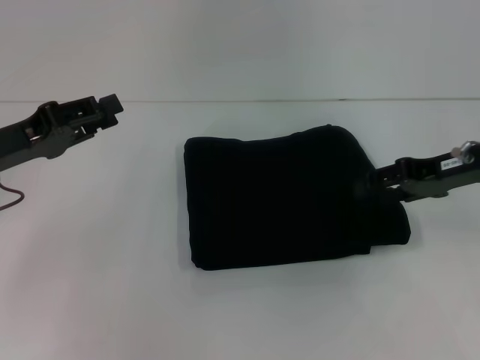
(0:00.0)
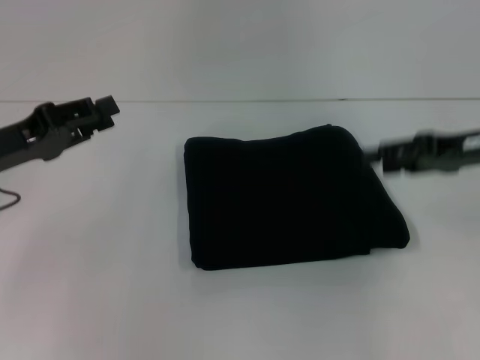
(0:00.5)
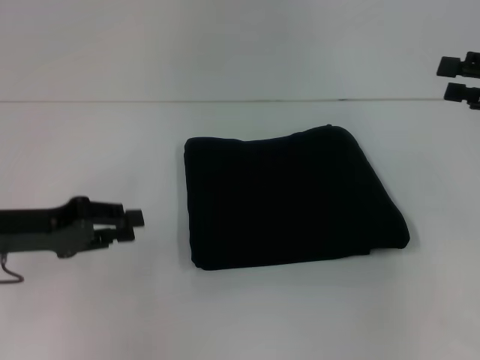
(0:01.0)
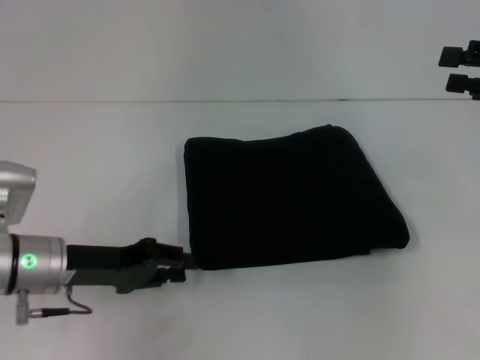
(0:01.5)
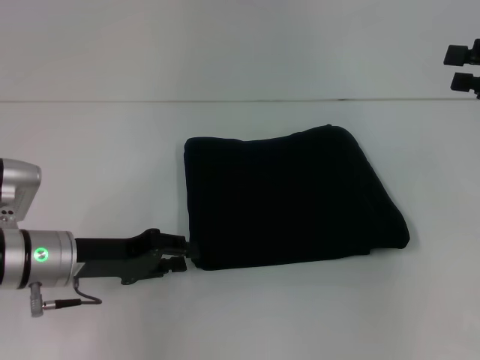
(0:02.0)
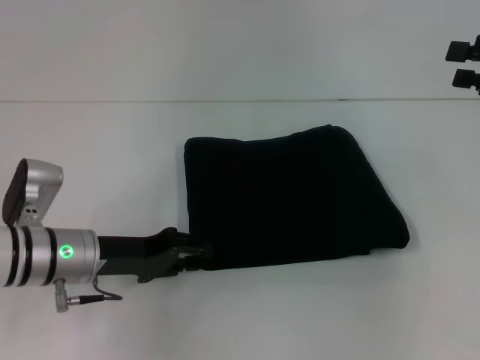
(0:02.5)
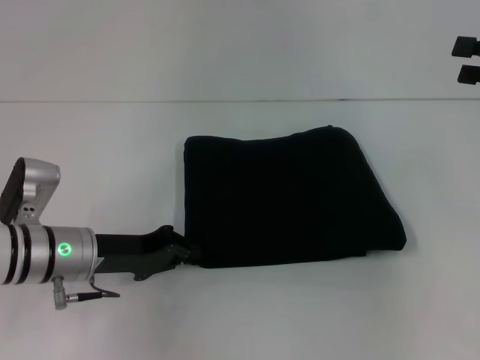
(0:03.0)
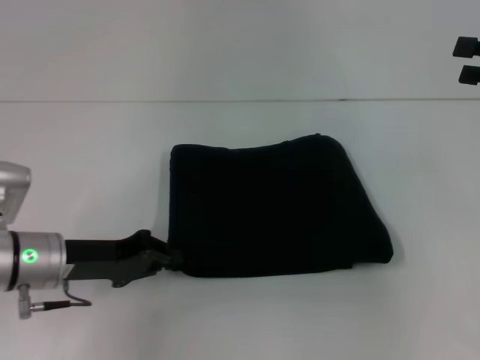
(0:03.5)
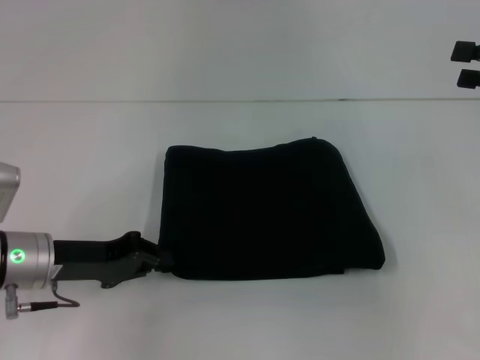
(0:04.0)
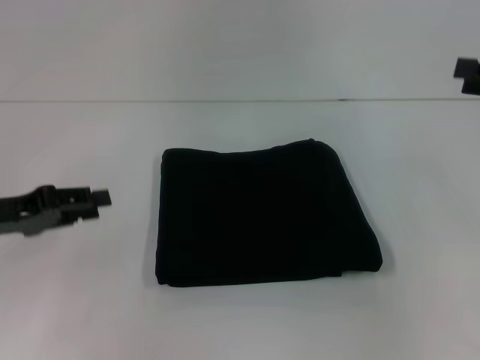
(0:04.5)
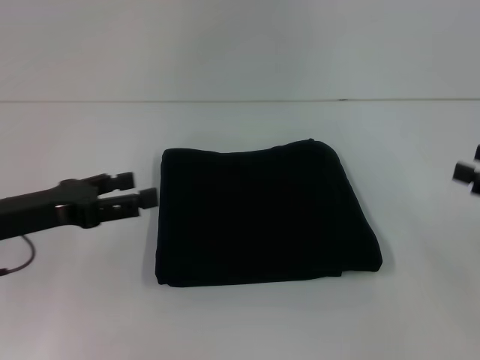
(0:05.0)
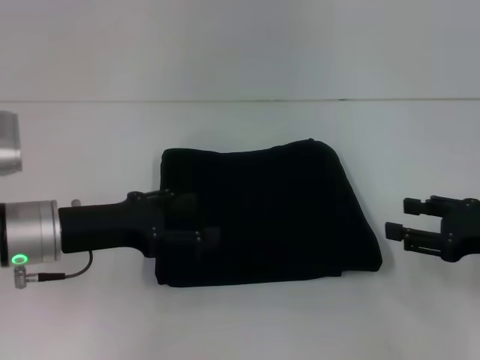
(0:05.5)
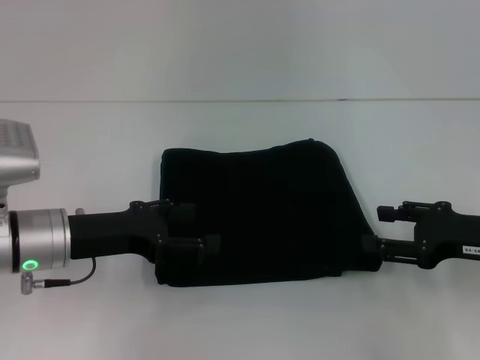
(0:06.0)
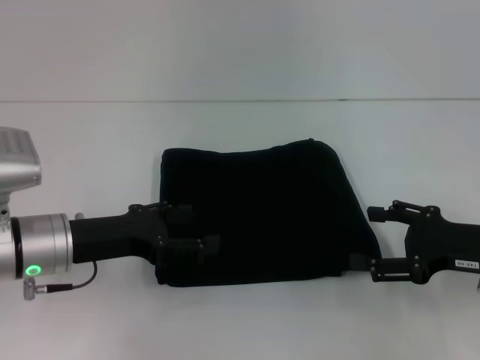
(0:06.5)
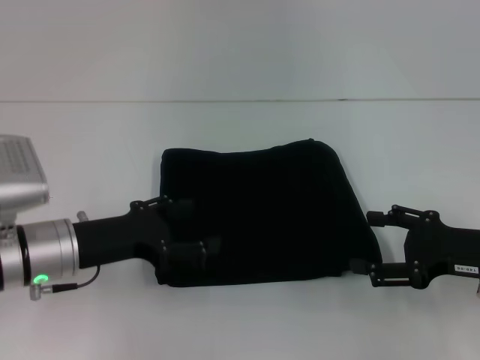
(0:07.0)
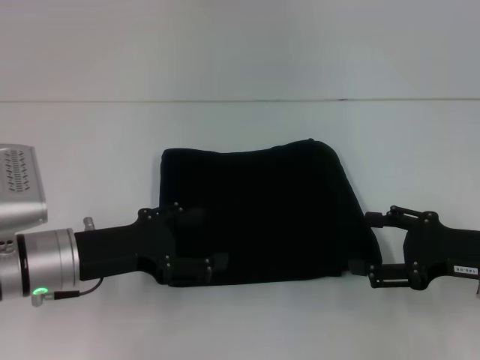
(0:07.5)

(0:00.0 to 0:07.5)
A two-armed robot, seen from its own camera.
0:00.0 - 0:02.0: The left gripper travels downward and to the right by roughly 10 cm, while the right gripper moves to the right and upward, approximately 10 cm.
0:02.0 - 0:04.0: The left gripper closes its fingers.
0:04.0 - 0:05.5: The right gripper is displaced downward and backward by some 15 cm. Meanwhile the left gripper reaches roughly 5 cm to the left, then returns, and opens up.
0:05.5 - 0:07.5: The grippers make only small movements.

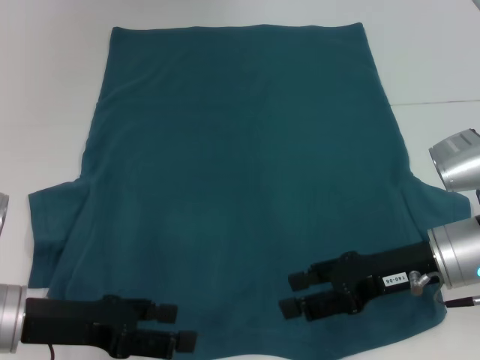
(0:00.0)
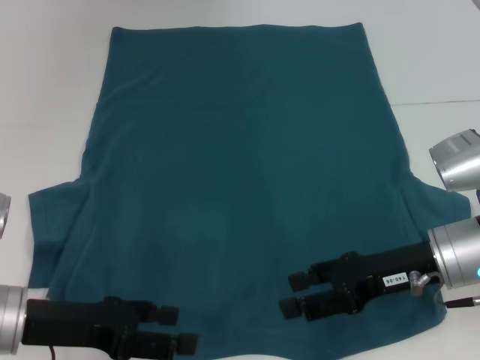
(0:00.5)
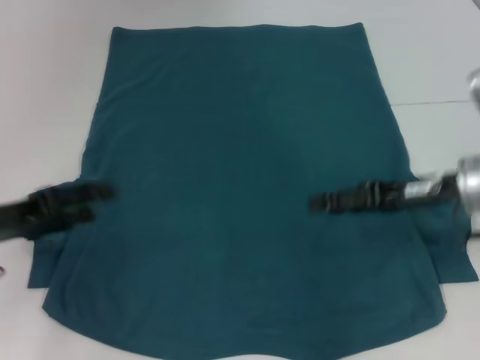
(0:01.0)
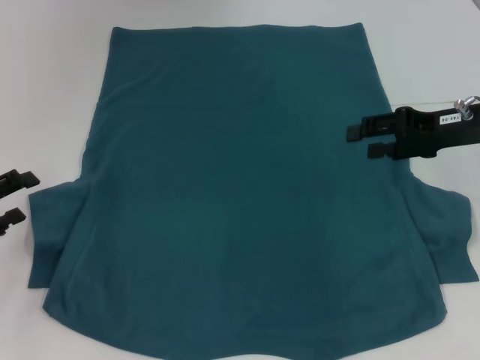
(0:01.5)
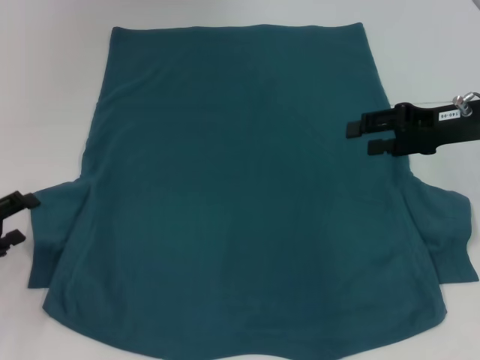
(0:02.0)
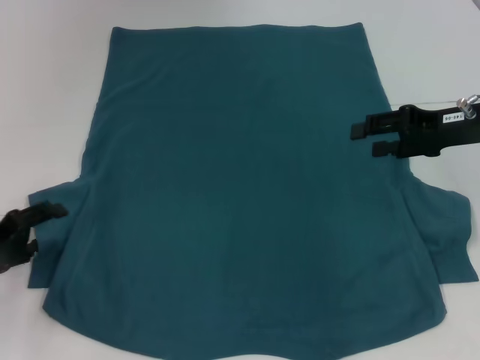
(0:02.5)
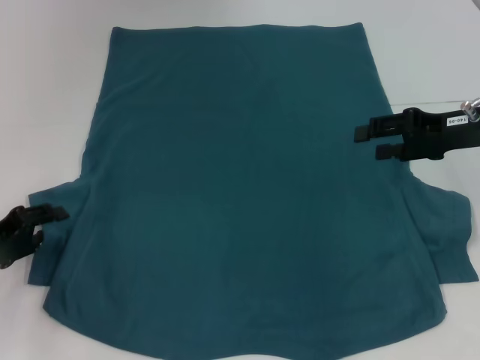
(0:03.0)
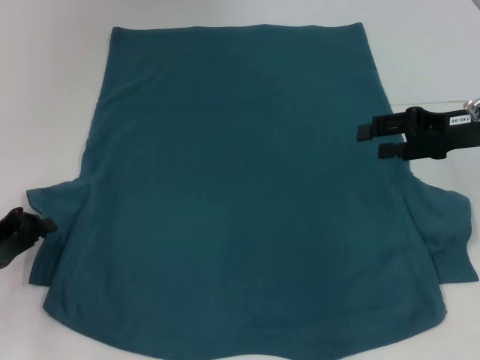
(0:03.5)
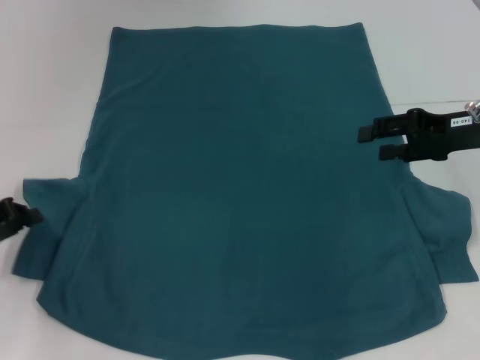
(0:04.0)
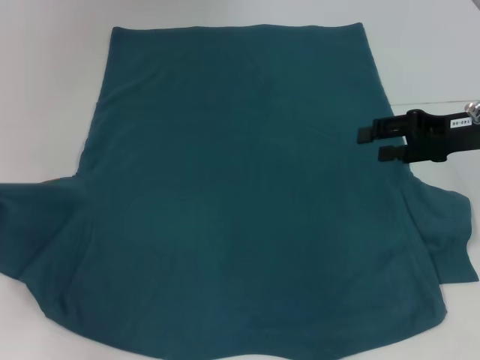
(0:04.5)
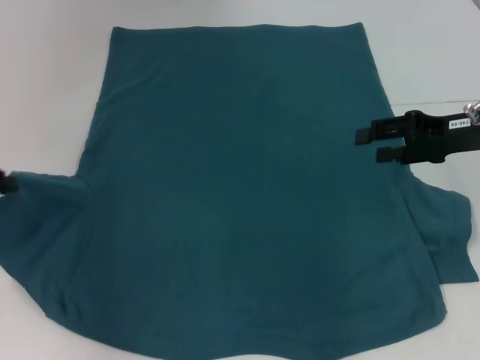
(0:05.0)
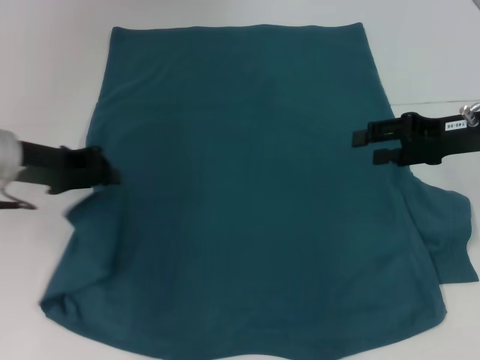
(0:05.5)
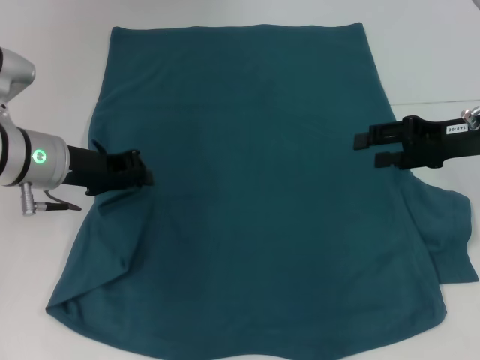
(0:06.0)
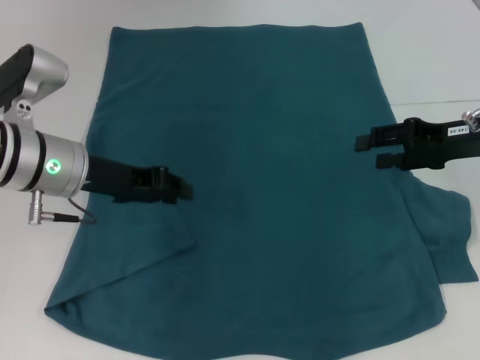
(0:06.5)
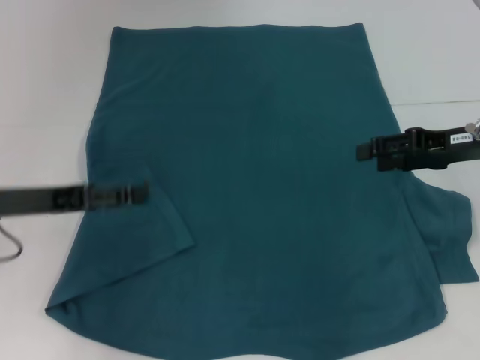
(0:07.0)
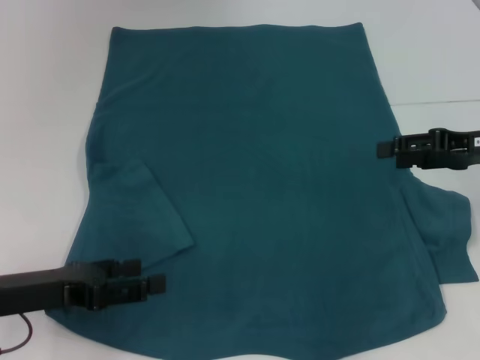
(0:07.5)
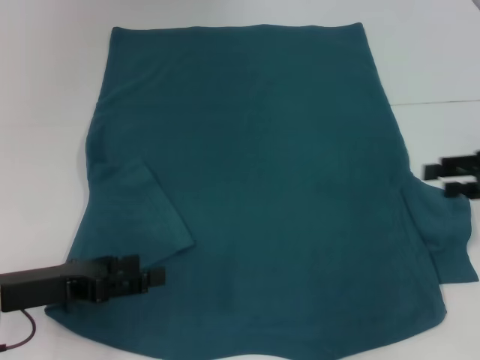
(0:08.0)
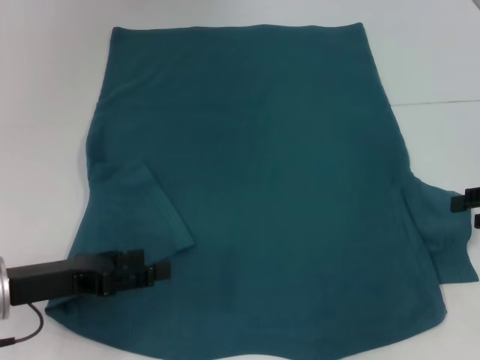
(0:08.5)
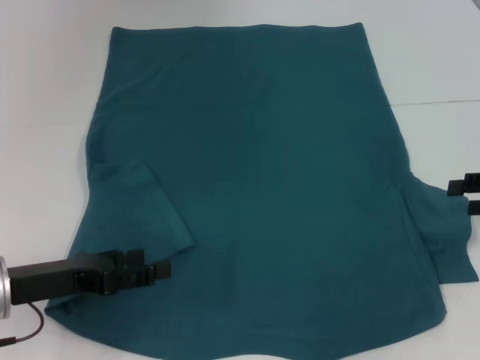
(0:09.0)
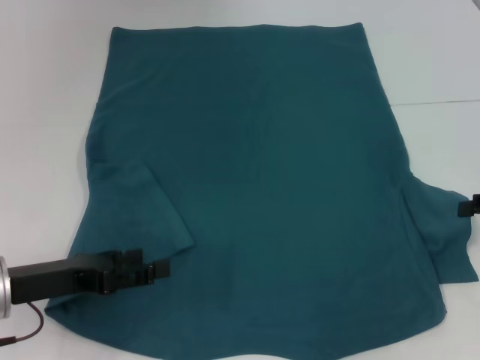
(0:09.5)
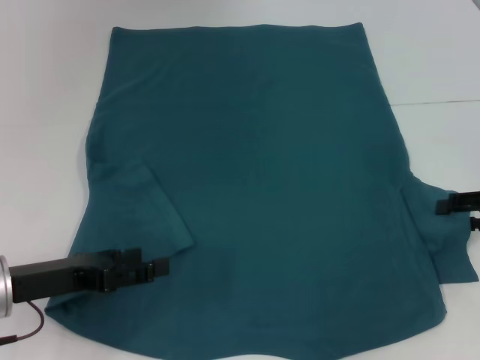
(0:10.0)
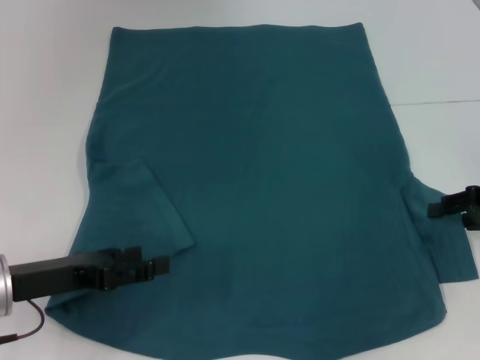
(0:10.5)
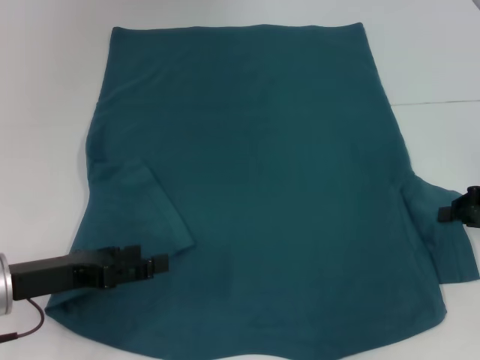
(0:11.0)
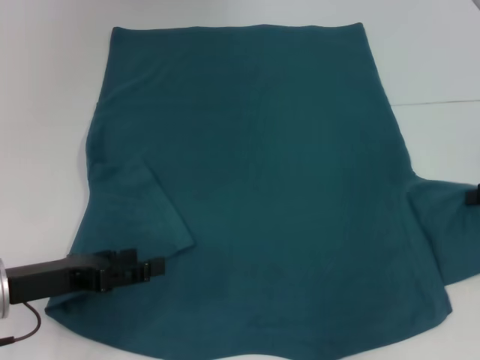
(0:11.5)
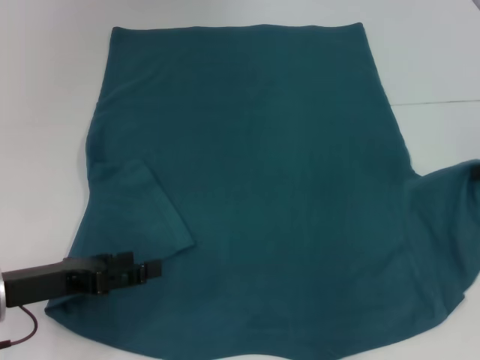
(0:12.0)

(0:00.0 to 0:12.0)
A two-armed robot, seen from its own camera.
Step, 0:00.0 - 0:06.5: Fold the bottom left sleeve with your left hand.
0:00.0 - 0:02.0: The left gripper moves to the left, some 10 cm, while the right gripper shifts approximately 15 cm forward, to the right and upward.
0:02.0 - 0:04.0: The left gripper closes.
0:04.0 - 0:06.0: The left gripper heads to the right, forward and upward, covering approximately 15 cm.
0:06.0 - 0:08.0: The right gripper moves to the right, about 5 cm. Meanwhile the left gripper travels backward, to the left and downward by some 15 cm, and opens its fingers.
0:08.0 - 0:10.0: The grippers move only a little.
0:10.0 - 0:12.0: The right gripper ends up about 5 cm from where it was, and closes its fingers.

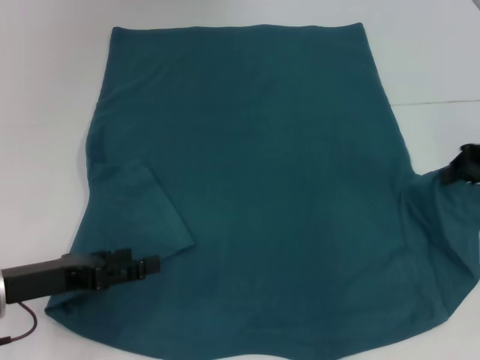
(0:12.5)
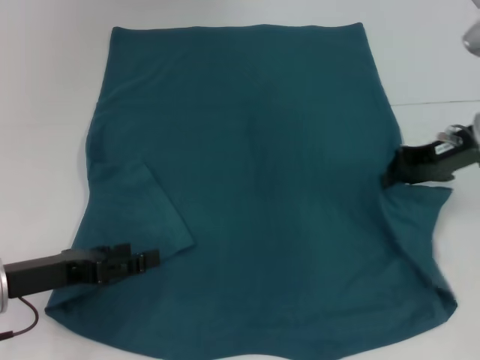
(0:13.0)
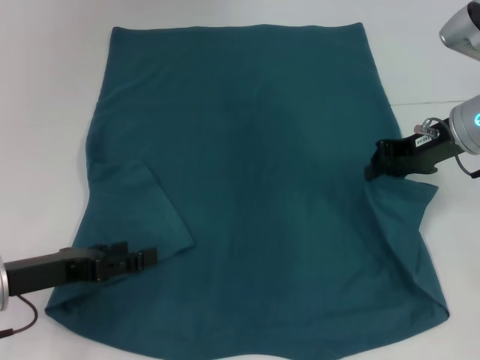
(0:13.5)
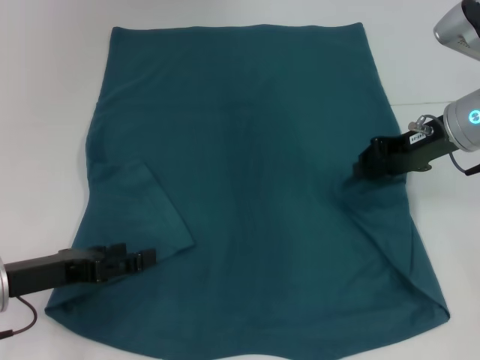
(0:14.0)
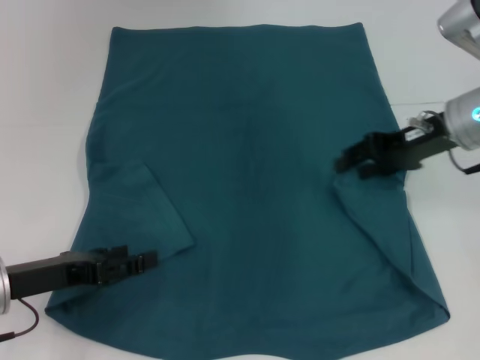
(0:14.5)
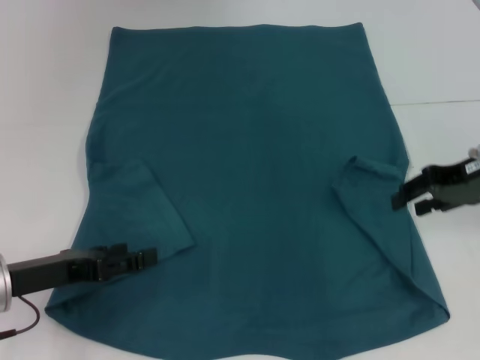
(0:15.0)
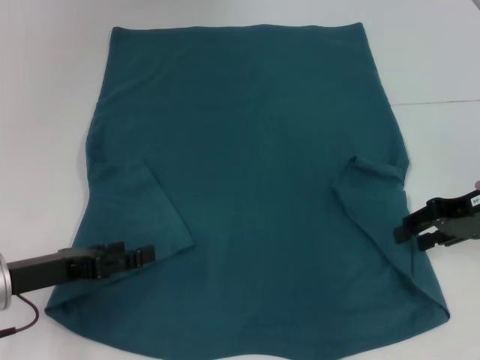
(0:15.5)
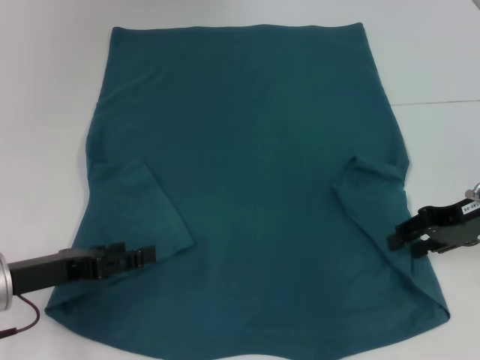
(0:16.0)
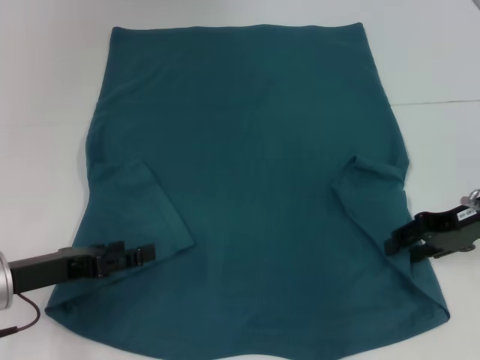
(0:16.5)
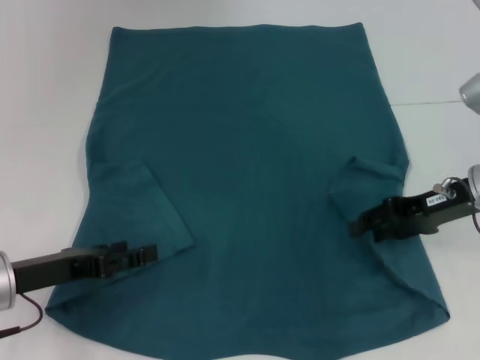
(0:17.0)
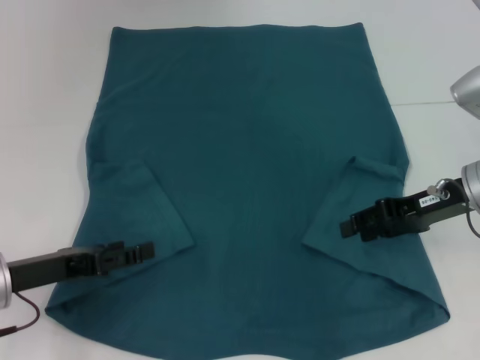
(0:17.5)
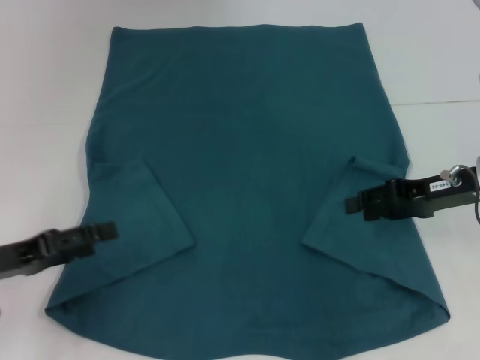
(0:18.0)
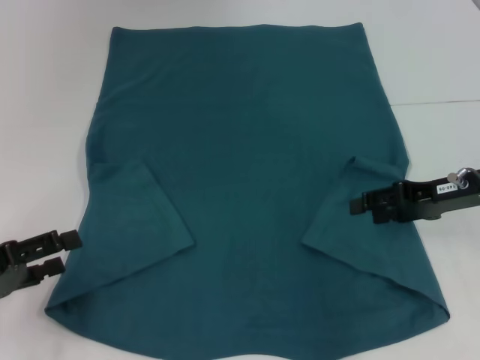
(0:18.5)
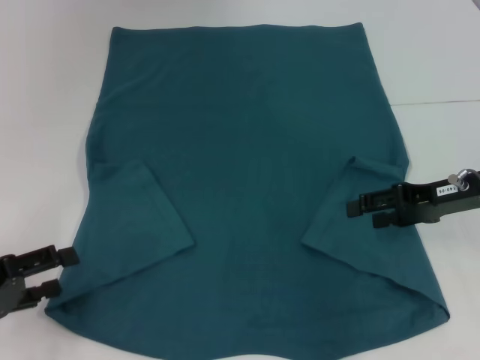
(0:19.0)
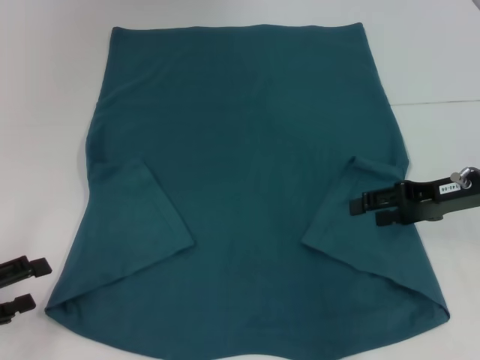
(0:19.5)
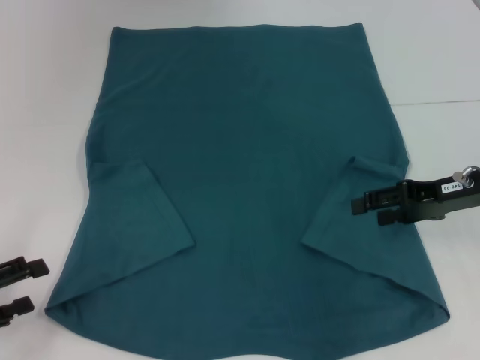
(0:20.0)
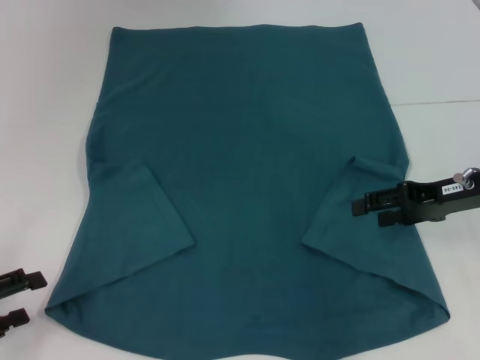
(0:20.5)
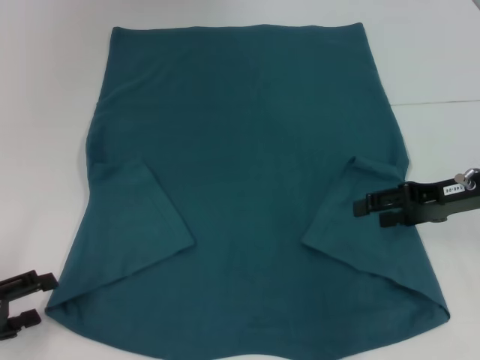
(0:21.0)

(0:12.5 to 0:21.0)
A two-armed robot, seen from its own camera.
Step, 0:12.5 - 0:17.5: Fold the bottom right sleeve to the right.
0:12.5 - 0:14.5: The right gripper is displaced to the left by approximately 10 cm, and opens its fingers.
0:14.5 - 0:16.5: The right gripper heads backward, covering about 5 cm.
0:16.5 - 0:19.0: The left gripper shifts about 5 cm to the left.
0:19.0 - 0:21.0: The grippers stay close to where they were, moving slightly.
